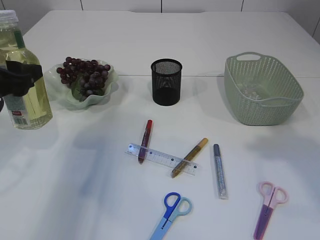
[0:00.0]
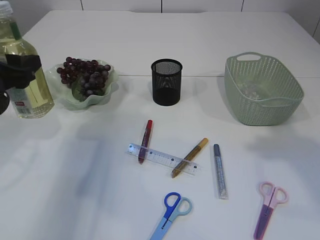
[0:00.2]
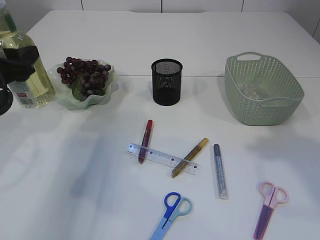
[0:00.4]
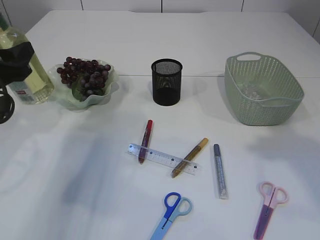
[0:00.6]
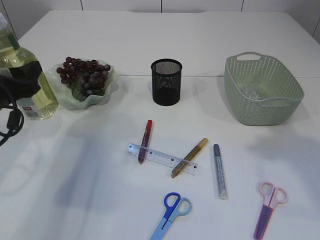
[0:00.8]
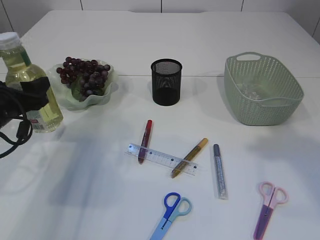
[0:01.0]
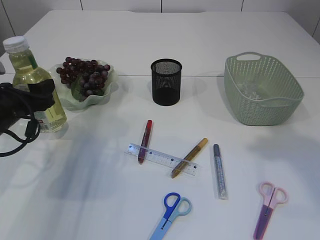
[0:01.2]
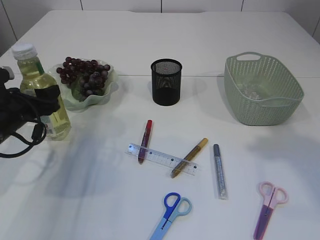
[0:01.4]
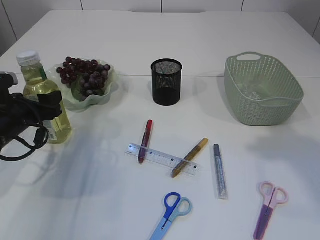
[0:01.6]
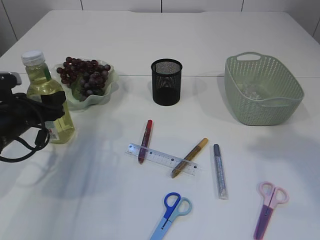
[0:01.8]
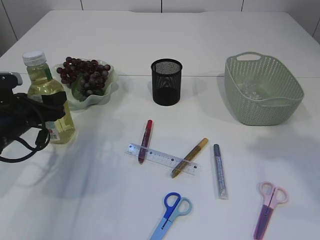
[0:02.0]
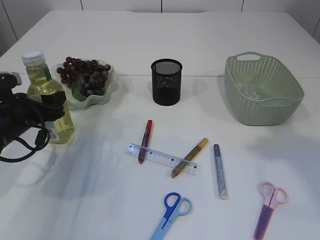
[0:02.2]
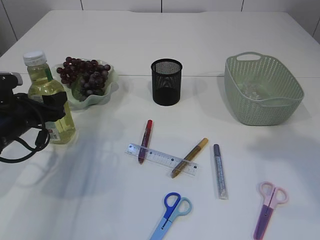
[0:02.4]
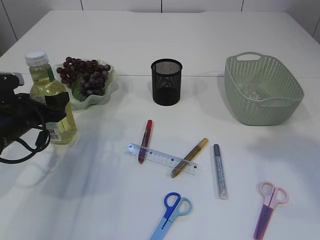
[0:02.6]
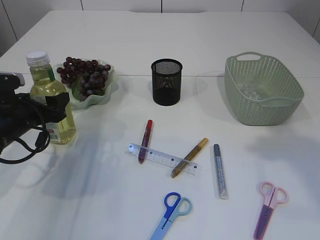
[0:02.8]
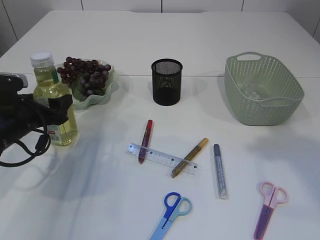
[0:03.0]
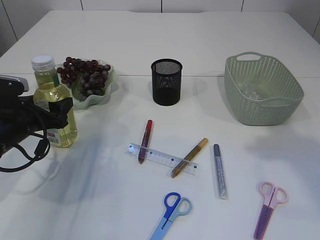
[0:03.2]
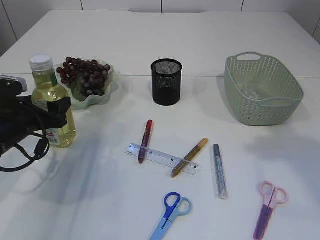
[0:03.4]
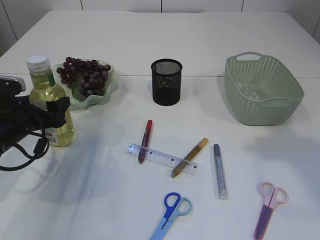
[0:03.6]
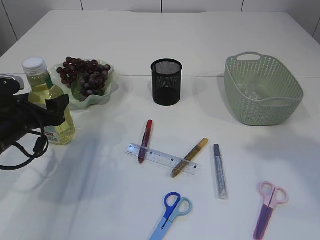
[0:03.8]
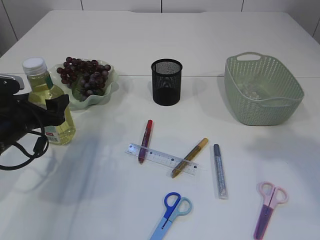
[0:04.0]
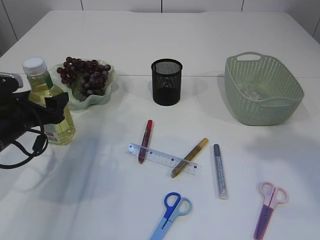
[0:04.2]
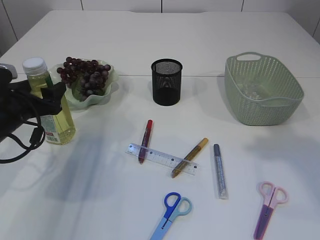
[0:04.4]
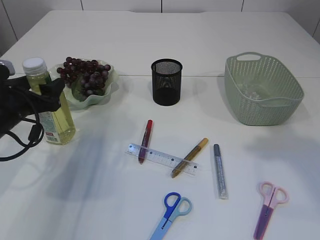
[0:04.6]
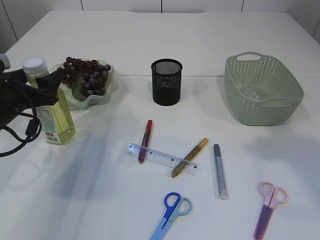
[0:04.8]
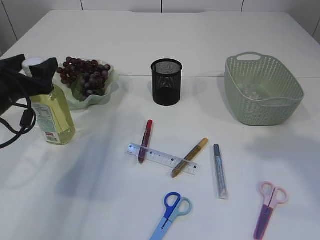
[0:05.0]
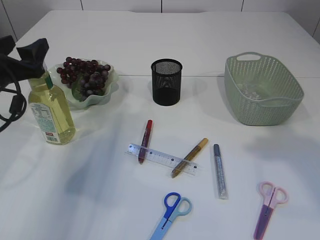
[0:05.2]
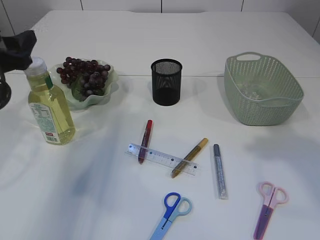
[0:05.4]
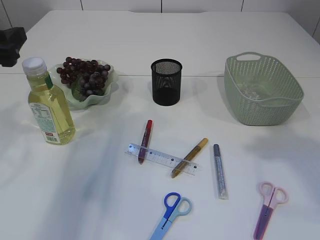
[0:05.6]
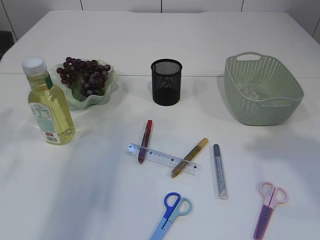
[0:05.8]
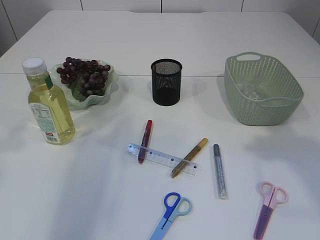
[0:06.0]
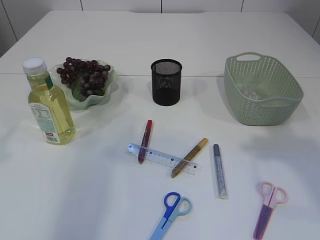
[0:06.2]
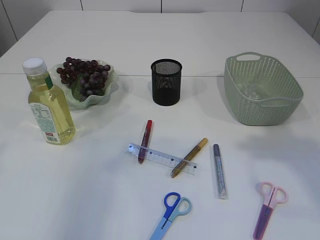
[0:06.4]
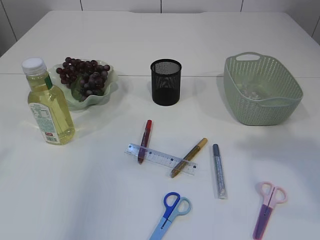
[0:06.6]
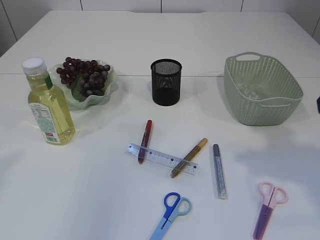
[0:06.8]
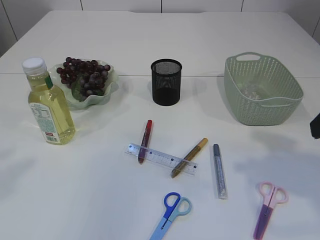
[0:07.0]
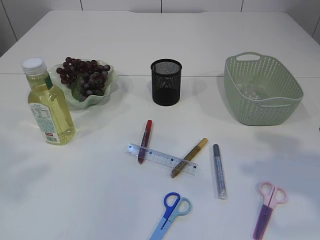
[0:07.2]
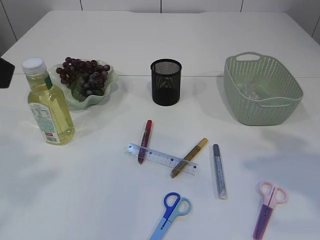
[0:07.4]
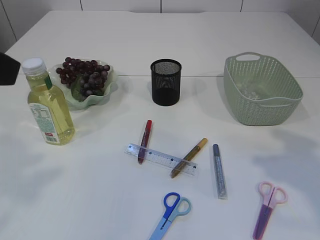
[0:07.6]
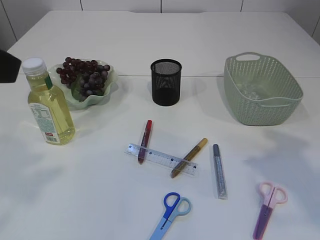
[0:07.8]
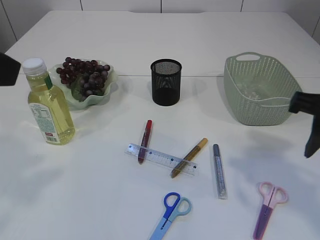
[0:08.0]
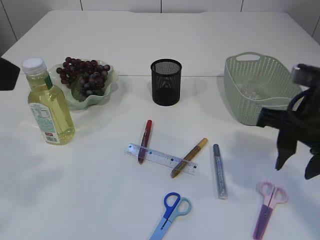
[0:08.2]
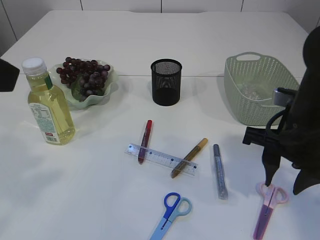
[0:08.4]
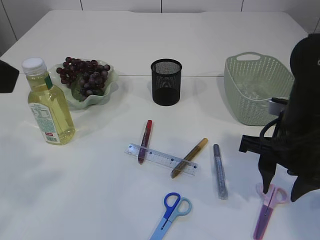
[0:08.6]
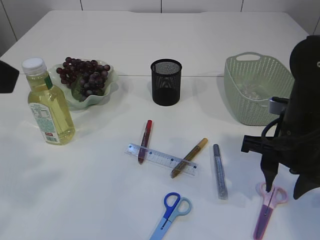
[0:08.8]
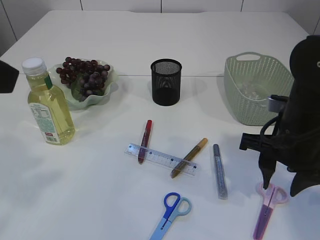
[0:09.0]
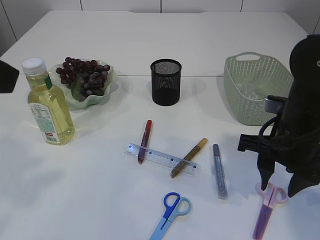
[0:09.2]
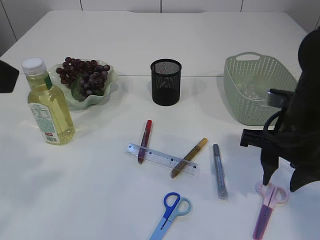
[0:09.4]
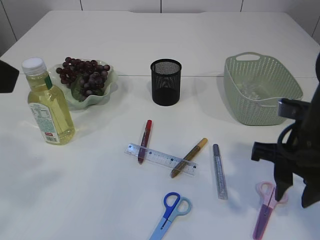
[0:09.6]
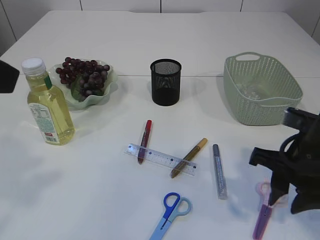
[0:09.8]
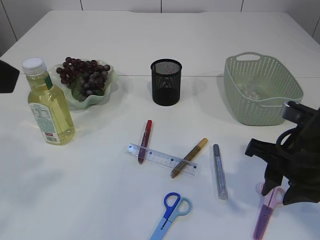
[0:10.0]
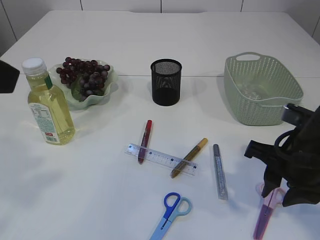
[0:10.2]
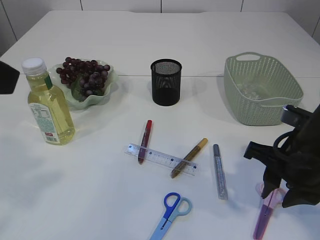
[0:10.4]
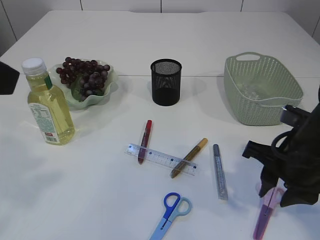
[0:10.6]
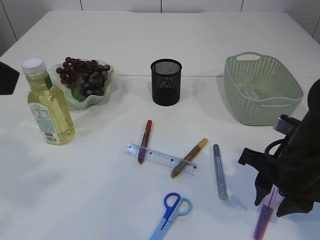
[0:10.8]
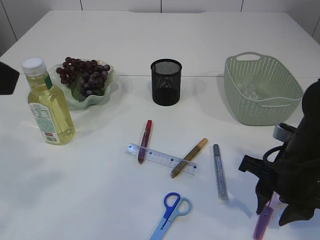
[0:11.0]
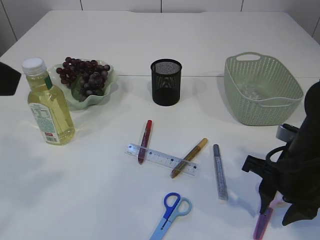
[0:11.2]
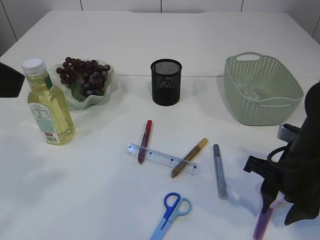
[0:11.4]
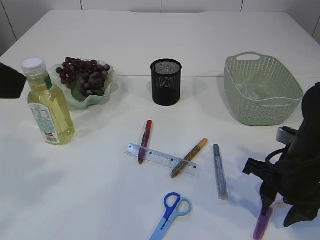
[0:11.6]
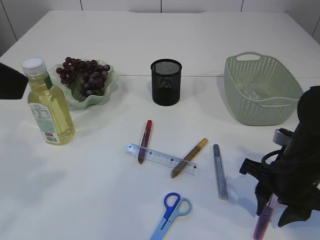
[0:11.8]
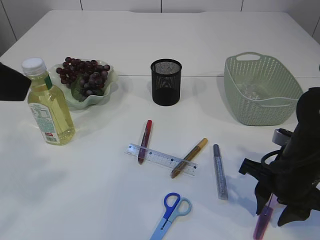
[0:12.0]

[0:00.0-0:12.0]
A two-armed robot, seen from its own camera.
Step, 0:00.0 to 0:05.4: Place the bottle.
0:00.0 to 0:01.6: The left gripper moves downward, approximately 10 cm.
0:01.6 to 0:04.4: The grippers move only a little.
0:04.4 to 0:06.0: The left gripper travels upward and backward by approximately 20 cm.
0:06.0 to 0:07.6: The left gripper moves backward, to the right and upward, about 15 cm; the right gripper goes approximately 5 cm downward.
0:07.6 to 0:09.0: The right gripper travels downward, to the left and forward by approximately 15 cm.
0:09.0 to 0:10.4: The grippers make only small movements.
0:10.4 to 0:12.0: The right gripper ends up some 5 cm from where it was.

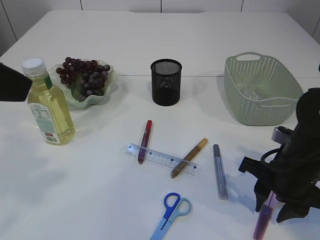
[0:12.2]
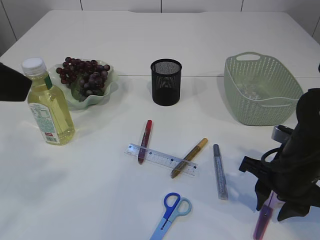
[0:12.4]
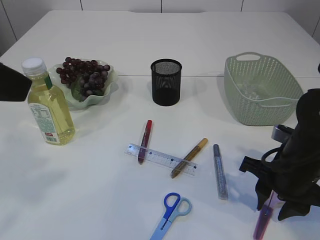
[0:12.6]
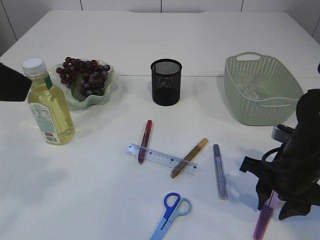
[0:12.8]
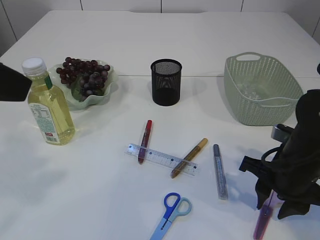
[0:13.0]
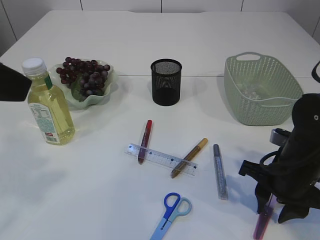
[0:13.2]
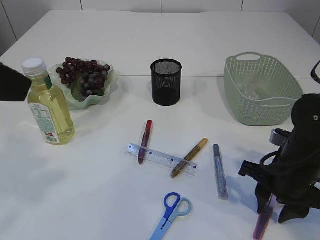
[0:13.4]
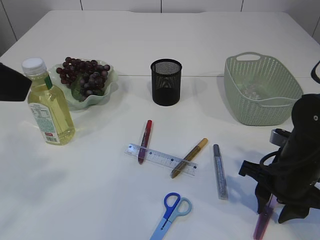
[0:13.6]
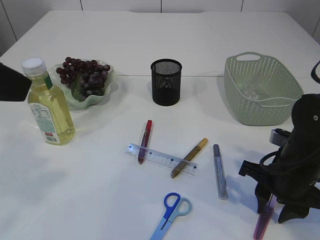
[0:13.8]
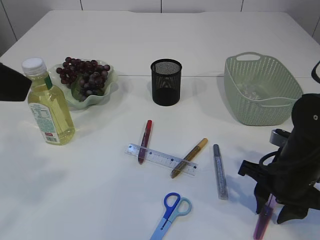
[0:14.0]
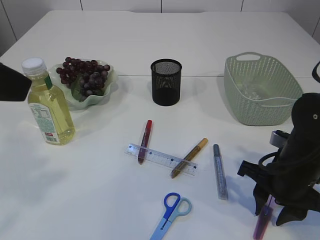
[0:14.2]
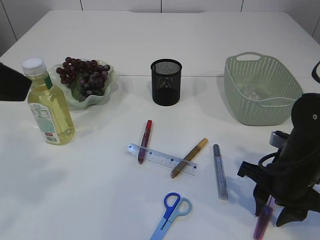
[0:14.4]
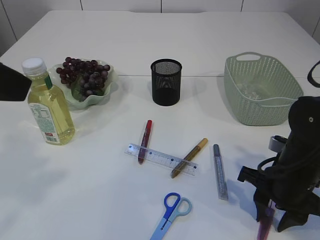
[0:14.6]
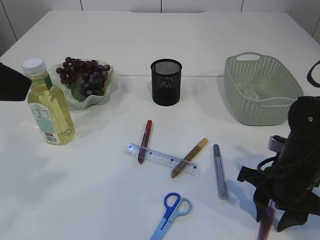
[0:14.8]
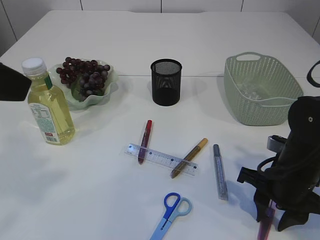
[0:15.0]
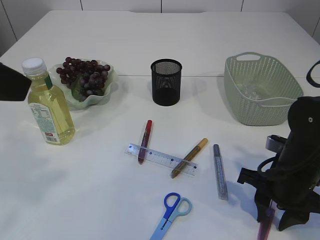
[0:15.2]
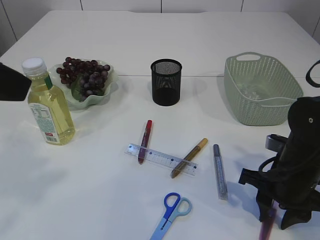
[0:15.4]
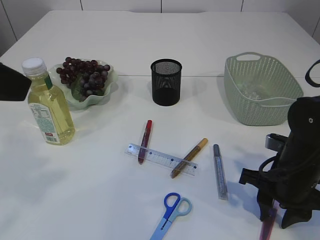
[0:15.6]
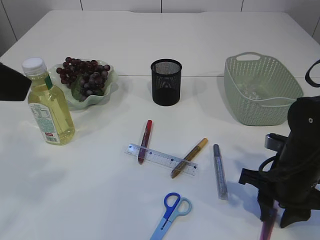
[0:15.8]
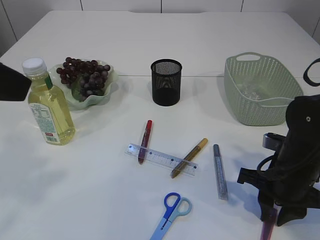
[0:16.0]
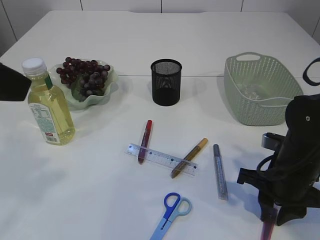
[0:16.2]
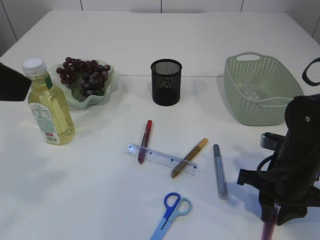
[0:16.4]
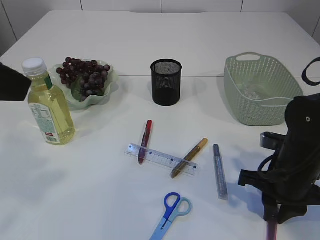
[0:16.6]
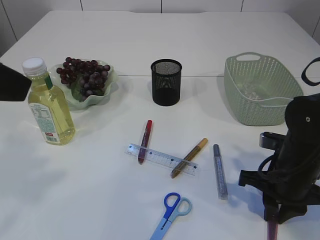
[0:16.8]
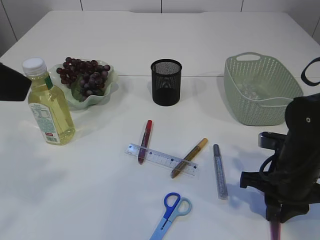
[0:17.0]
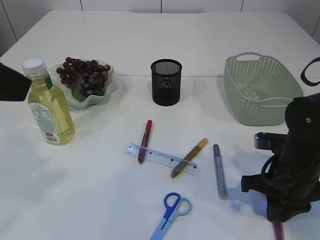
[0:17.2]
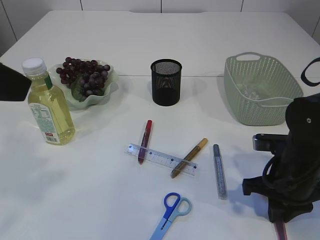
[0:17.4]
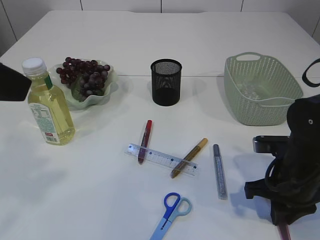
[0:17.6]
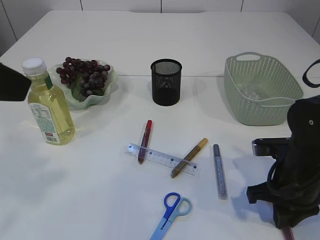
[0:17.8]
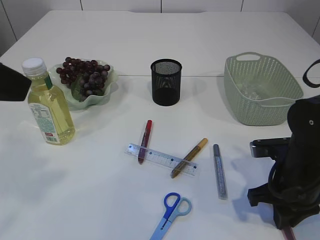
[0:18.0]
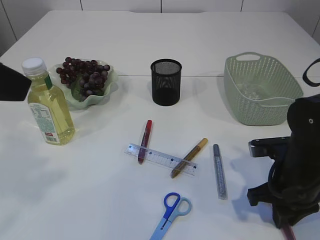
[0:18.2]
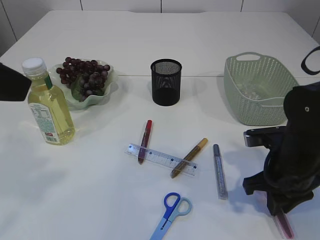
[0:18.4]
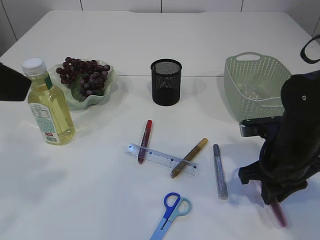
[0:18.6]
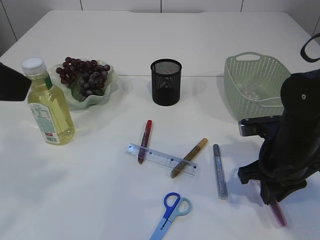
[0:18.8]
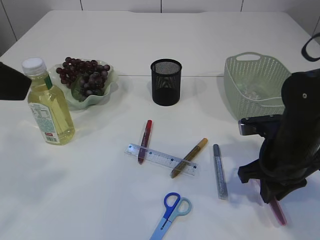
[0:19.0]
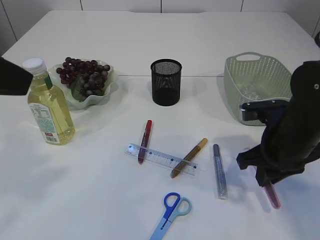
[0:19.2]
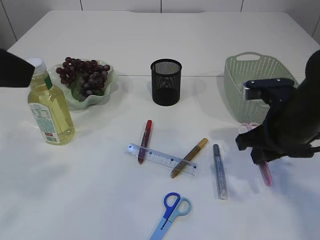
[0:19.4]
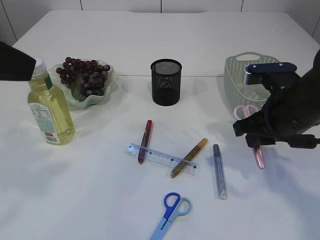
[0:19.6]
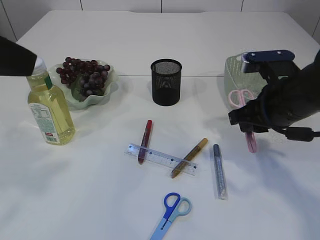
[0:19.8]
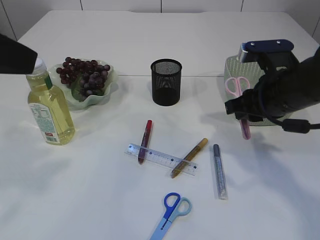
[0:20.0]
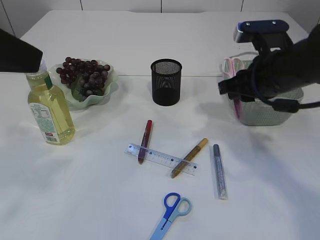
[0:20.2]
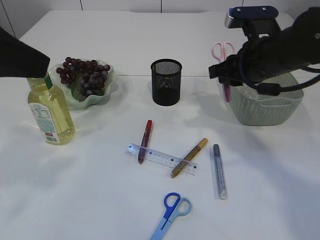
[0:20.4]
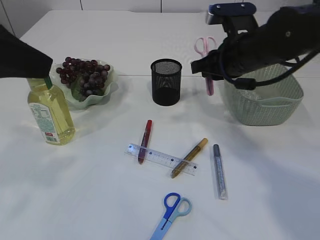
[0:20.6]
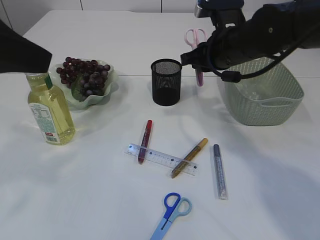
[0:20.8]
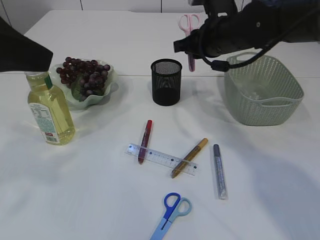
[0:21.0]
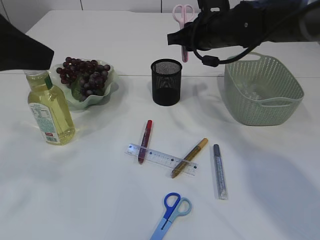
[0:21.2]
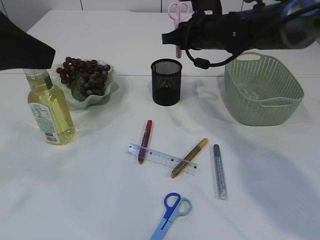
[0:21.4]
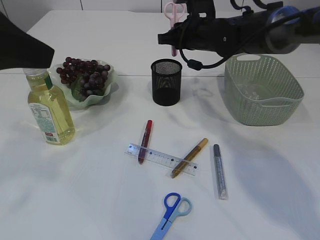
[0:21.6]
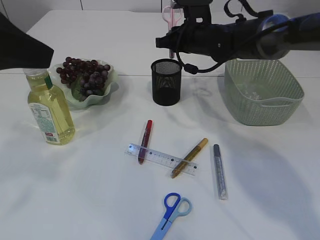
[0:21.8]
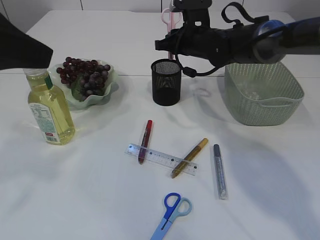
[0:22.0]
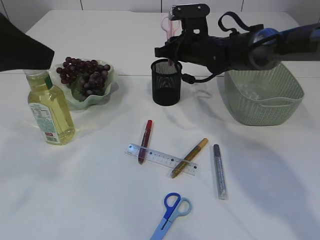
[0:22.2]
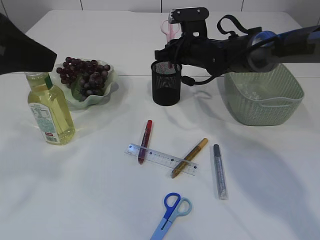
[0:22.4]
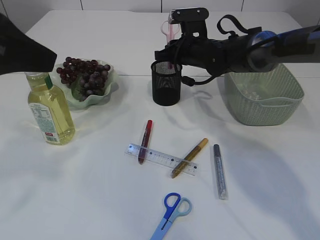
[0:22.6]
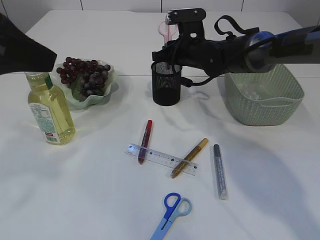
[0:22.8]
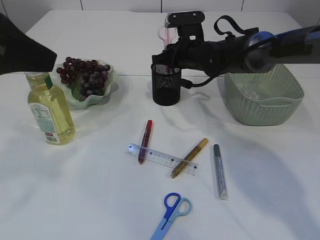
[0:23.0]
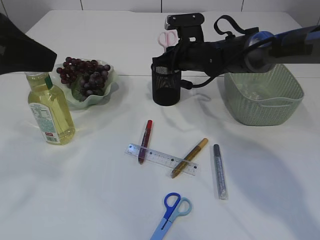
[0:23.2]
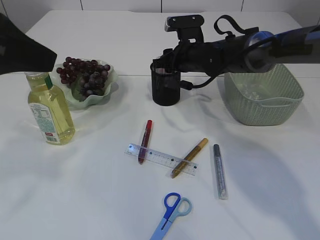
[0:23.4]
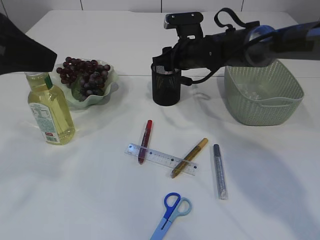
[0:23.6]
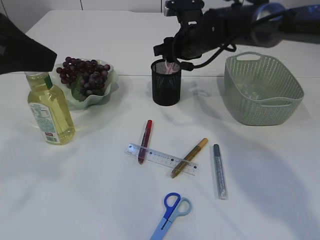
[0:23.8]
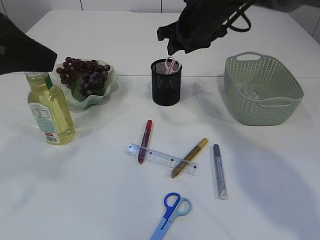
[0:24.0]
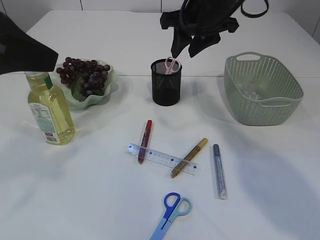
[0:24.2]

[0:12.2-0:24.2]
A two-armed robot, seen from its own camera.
Step, 0:12.2 to 0:19.4: pick up the pink scissors.
Step, 0:19.6 to 0:24.0: Place the pink scissors into the pen holder.
0:12.2 to 0:13.8: Both grippers stay put.
0:13.8 to 0:15.2: Both grippers stay put.
0:15.2 to 0:16.6: The right gripper closes its fingers.
0:18.2 to 0:19.8: The right gripper is displaced upward by some 10 cm.
0:19.8 to 0:21.2: The right gripper heads forward and to the left, covering about 15 cm.
0:21.2 to 0:22.6: The right gripper shifts some 10 cm downward and forward.
0:22.6 to 0:24.2: The right gripper shifts about 15 cm upward and backward, and opens up.
